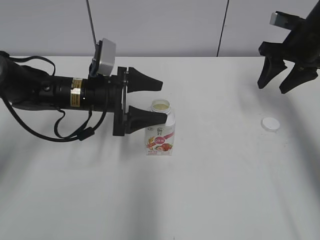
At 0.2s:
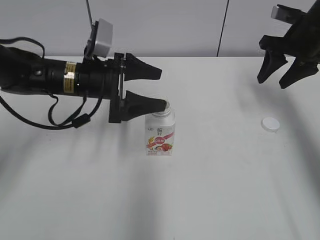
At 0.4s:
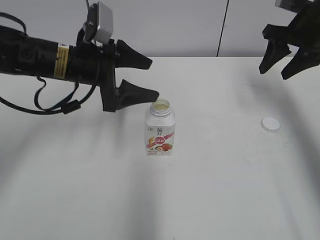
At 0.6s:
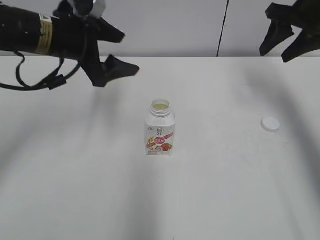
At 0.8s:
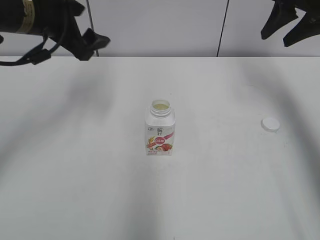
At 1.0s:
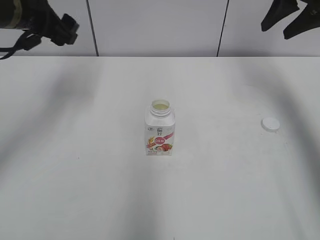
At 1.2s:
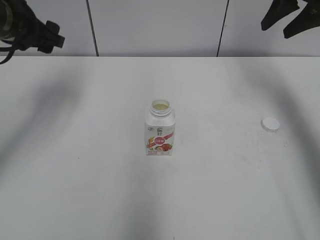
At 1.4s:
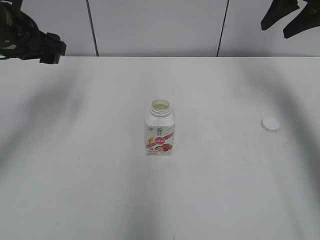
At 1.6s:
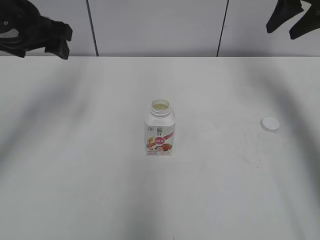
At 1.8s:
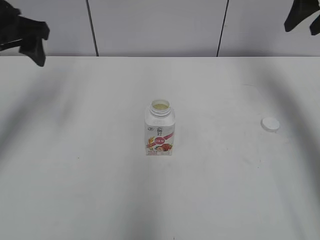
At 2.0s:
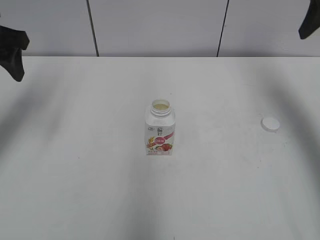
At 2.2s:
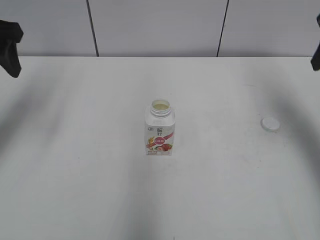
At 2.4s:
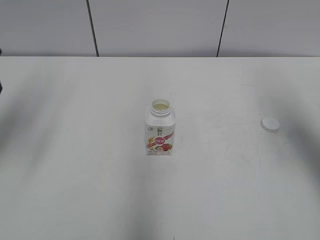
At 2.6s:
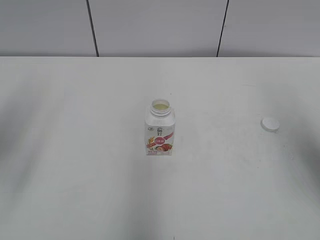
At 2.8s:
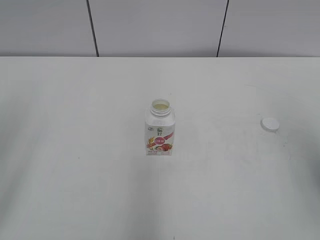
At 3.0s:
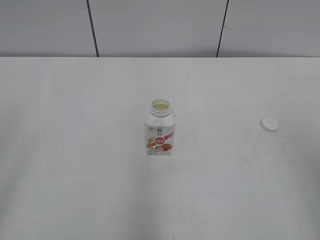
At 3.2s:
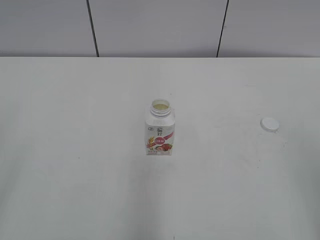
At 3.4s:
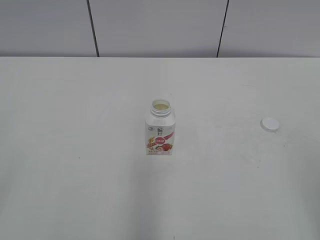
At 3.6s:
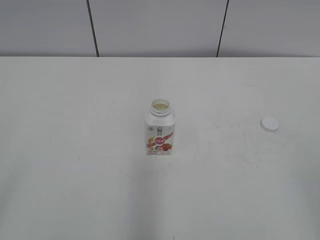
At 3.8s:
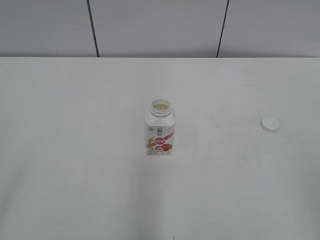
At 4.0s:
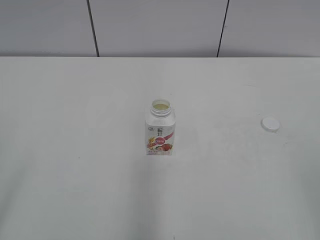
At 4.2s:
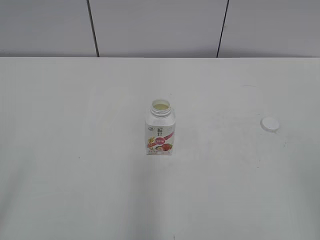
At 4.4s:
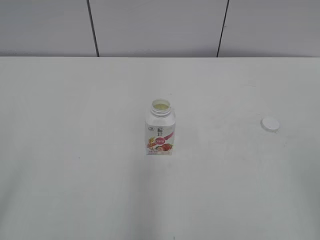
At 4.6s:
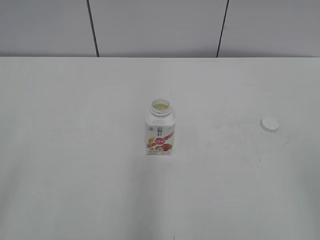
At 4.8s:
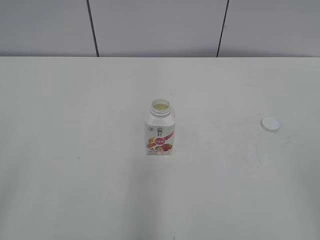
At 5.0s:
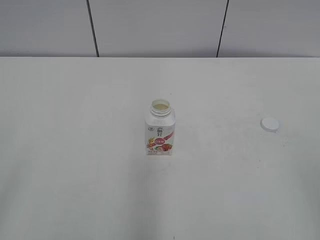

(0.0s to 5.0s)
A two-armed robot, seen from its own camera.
0.0s - 1.6s: The right gripper shifts approximately 10 cm upward. The left gripper moves upward and to the left, about 20 cm.
1.6s - 3.4s: Both grippers move backward, approximately 40 cm.
